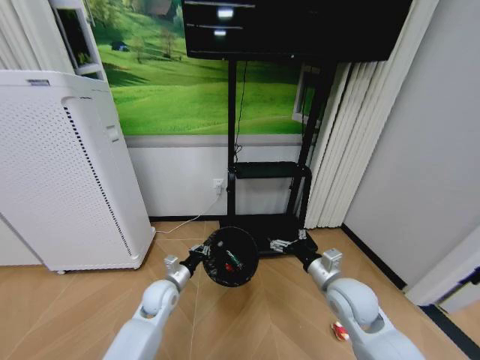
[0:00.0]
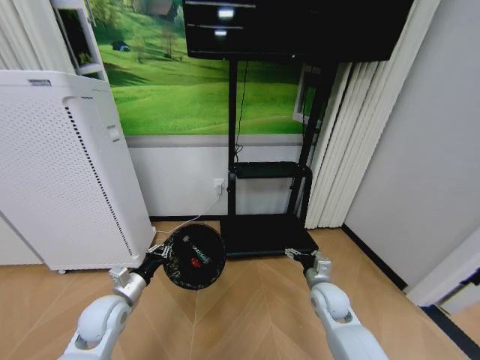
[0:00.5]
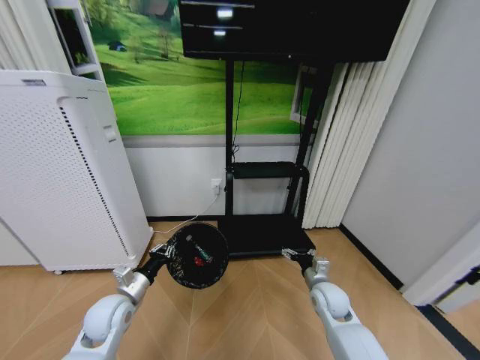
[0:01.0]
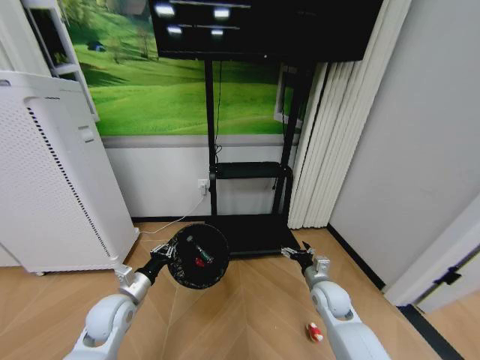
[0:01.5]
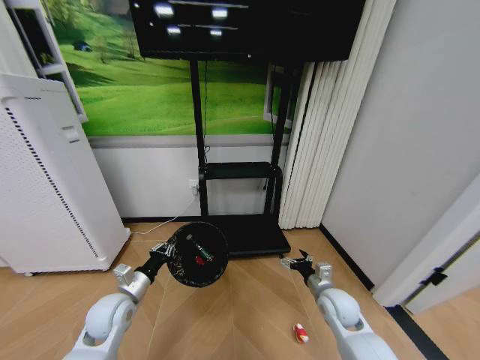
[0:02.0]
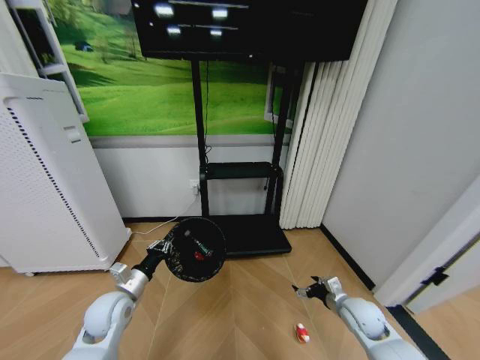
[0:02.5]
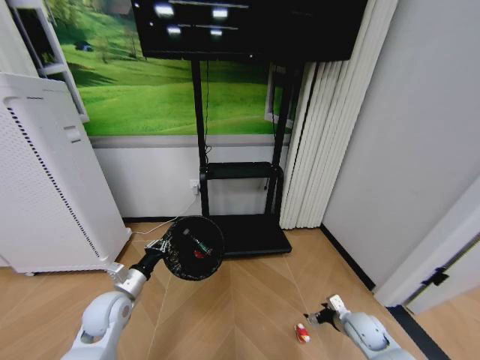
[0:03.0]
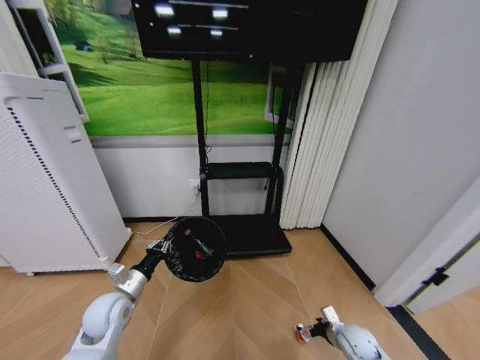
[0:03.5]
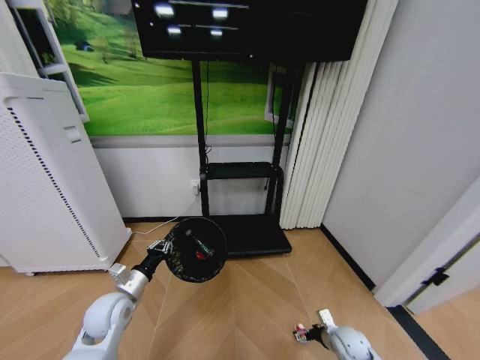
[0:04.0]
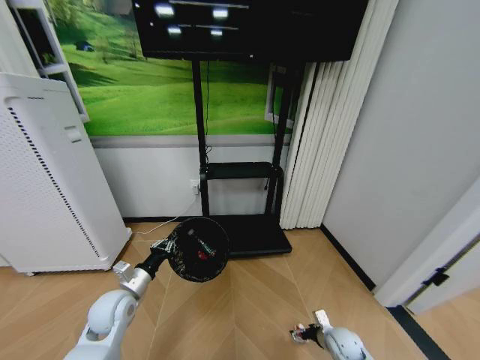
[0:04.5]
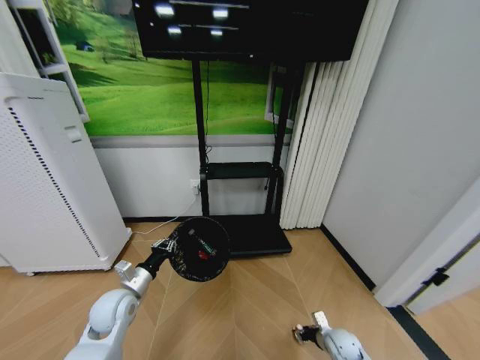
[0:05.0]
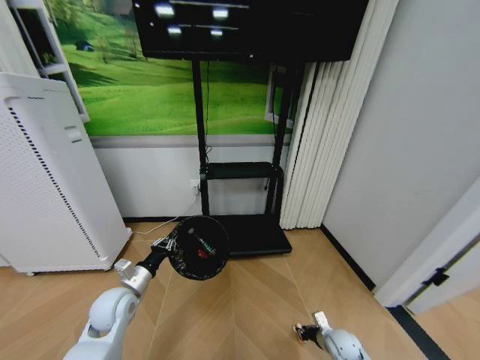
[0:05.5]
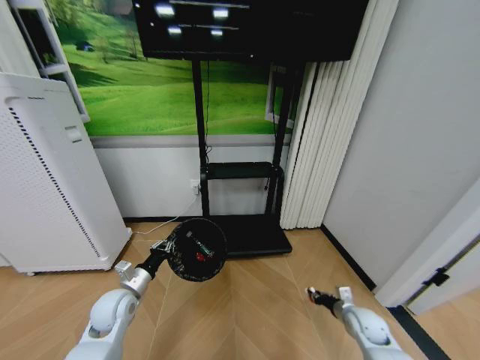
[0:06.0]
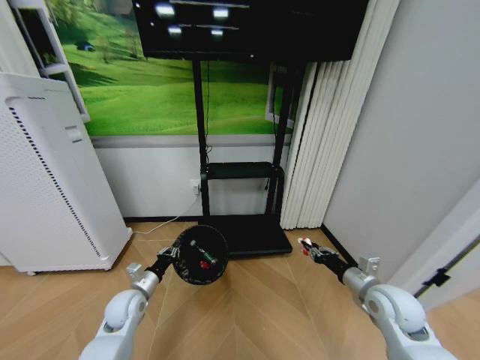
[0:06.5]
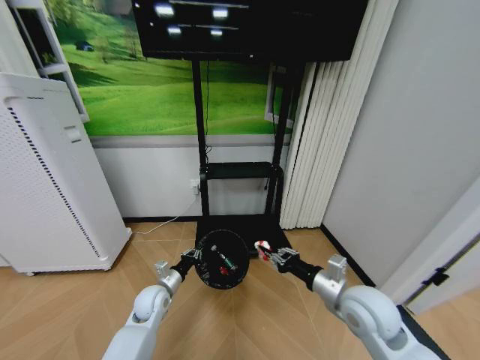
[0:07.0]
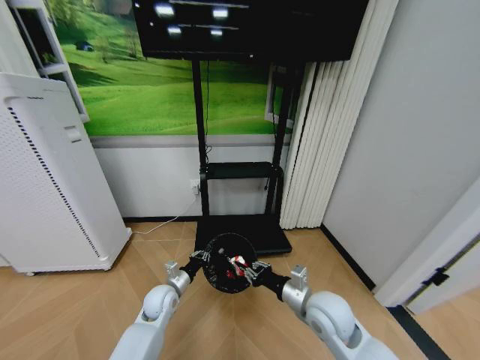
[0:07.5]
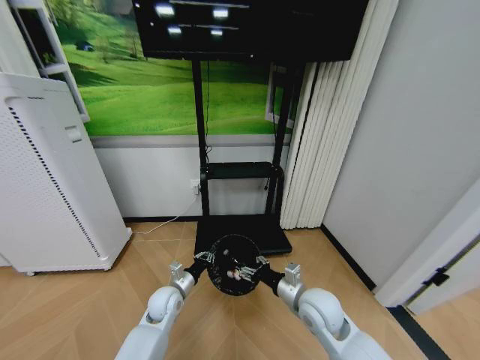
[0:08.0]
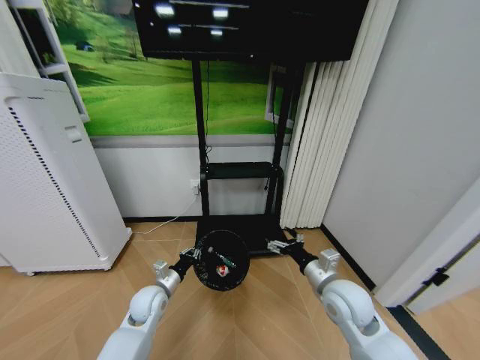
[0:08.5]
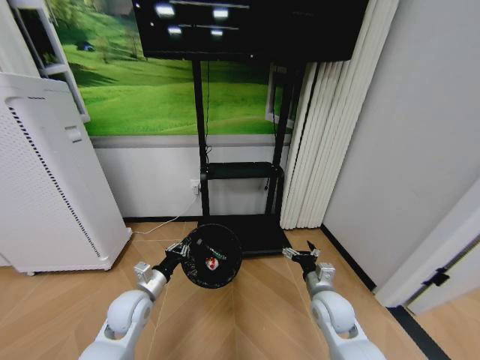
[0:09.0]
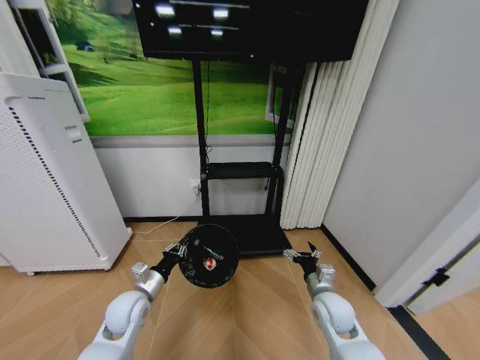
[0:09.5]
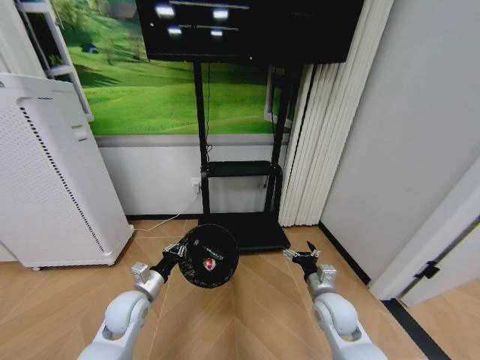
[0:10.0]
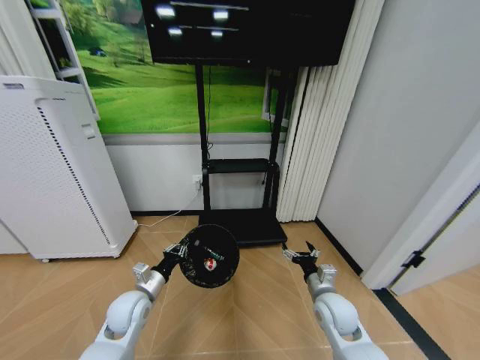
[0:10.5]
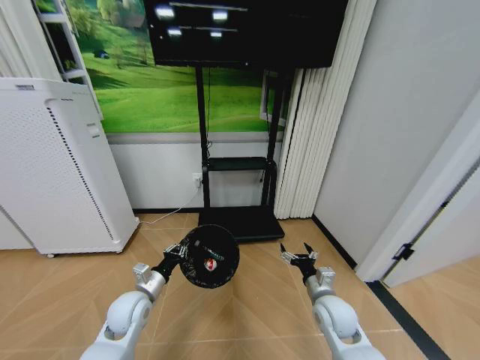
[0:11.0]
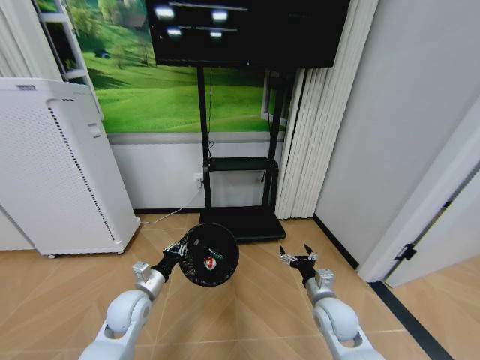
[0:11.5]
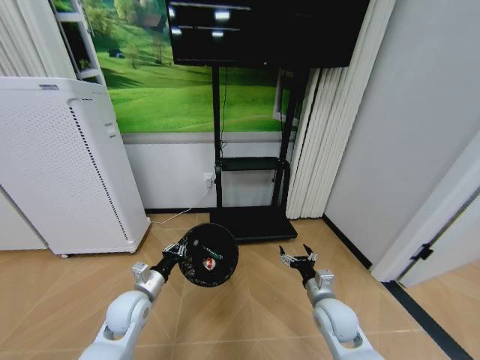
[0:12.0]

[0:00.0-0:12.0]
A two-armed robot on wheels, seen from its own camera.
Task of the whole recording: Pick up the trash bin and place the garbage on the floor into it.
0:00.0 to 0:02.0: The left gripper travels to the left, backward and upward by roughly 15 cm. The right gripper shifts about 10 cm downward.
0:02.0 to 0:04.0: The right gripper travels downward and to the right by some 15 cm.
0:04.0 to 0:06.0: The right gripper is displaced upward by approximately 5 cm, and closes.
0:06.0 to 0:08.0: The left gripper heads to the right and downward, covering about 15 cm; the right gripper heads to the left and upward, covering some 25 cm, and opens.
0:08.0 to 0:10.0: The left gripper heads to the left and upward, covering roughly 10 cm, while the right gripper is displaced to the right by some 5 cm, and opens up.

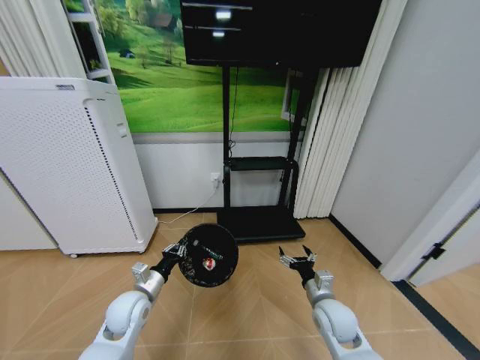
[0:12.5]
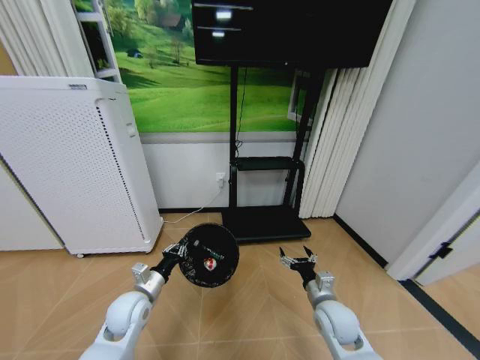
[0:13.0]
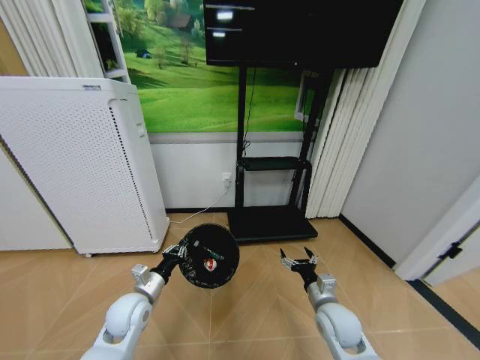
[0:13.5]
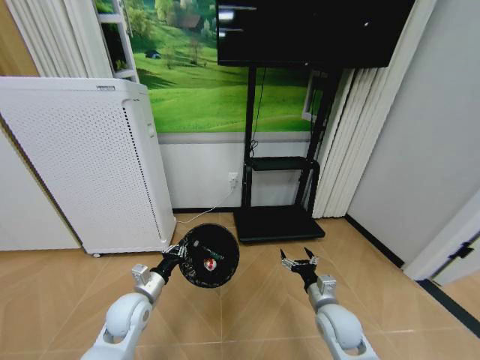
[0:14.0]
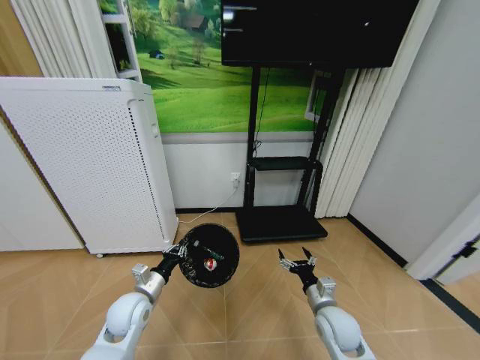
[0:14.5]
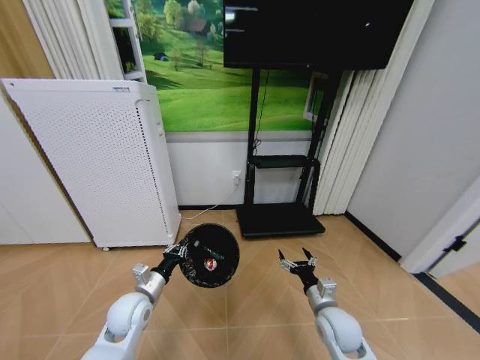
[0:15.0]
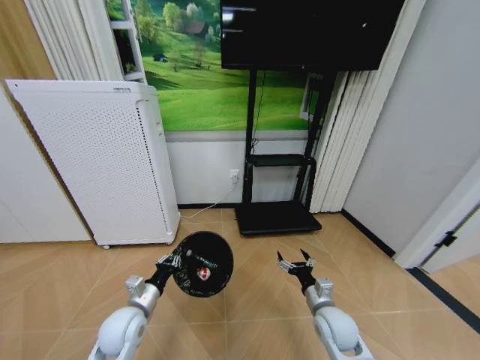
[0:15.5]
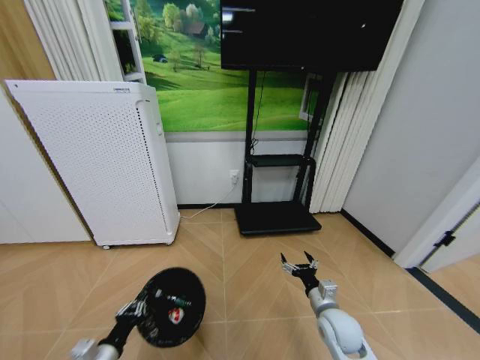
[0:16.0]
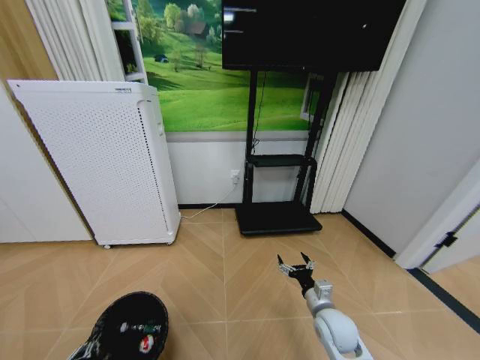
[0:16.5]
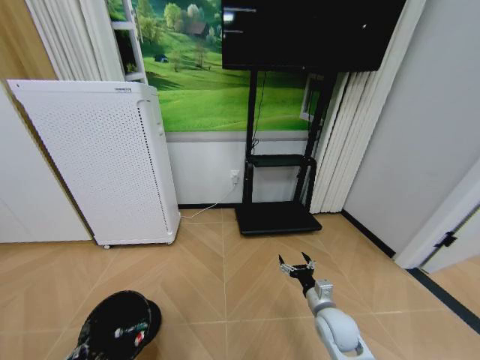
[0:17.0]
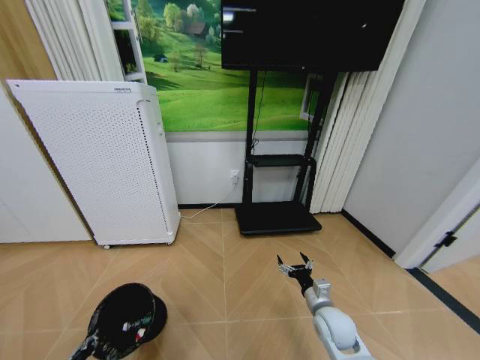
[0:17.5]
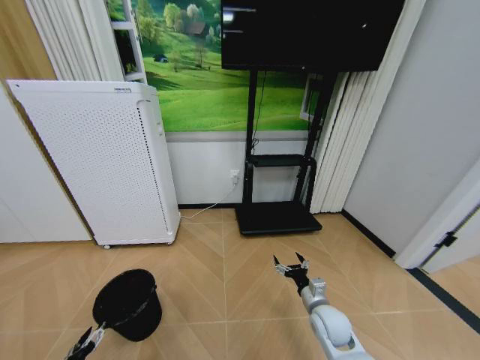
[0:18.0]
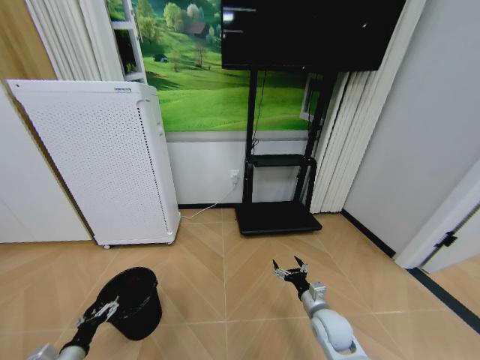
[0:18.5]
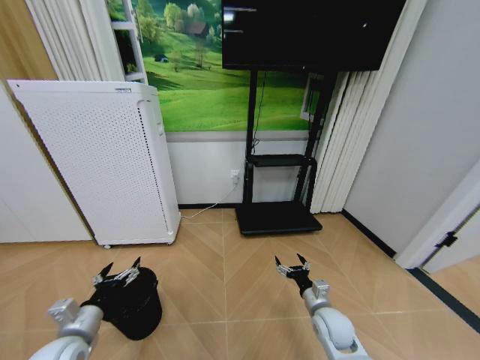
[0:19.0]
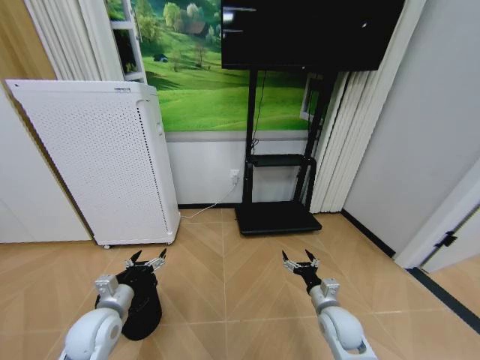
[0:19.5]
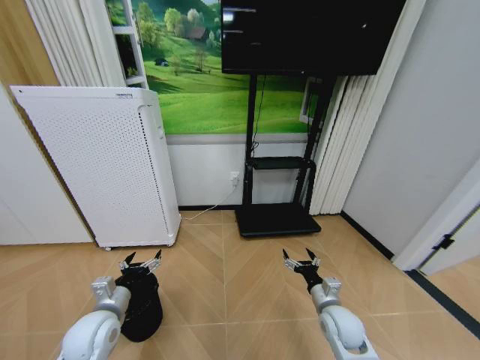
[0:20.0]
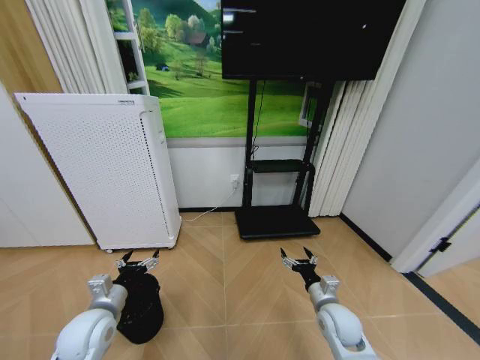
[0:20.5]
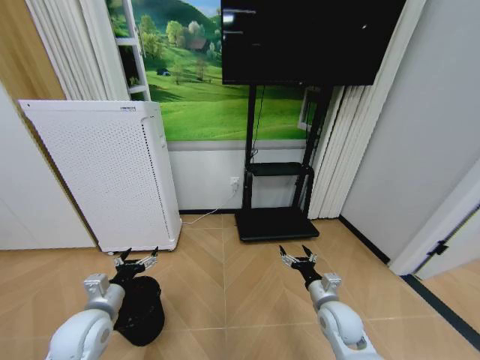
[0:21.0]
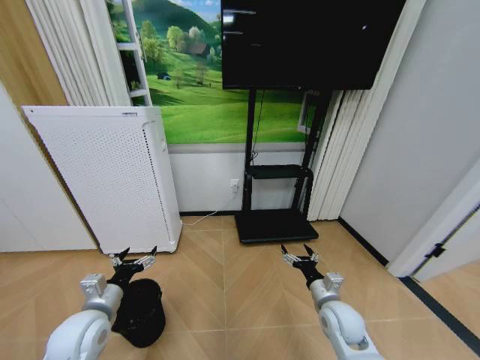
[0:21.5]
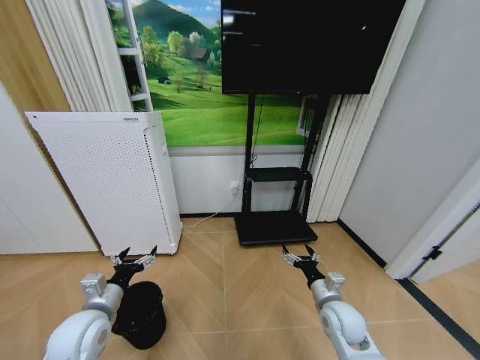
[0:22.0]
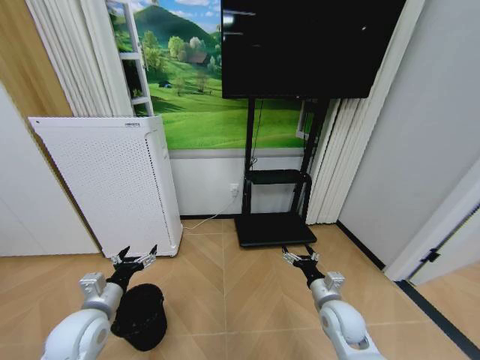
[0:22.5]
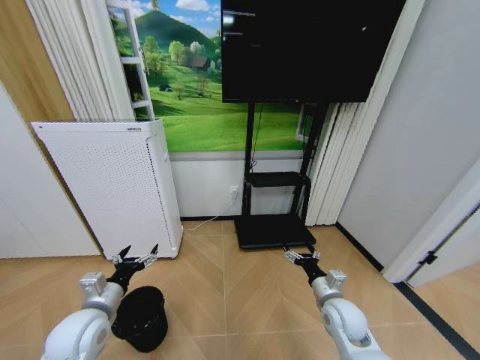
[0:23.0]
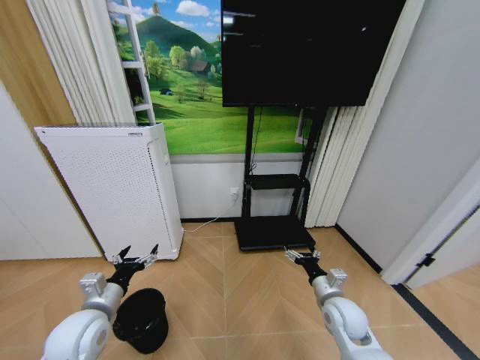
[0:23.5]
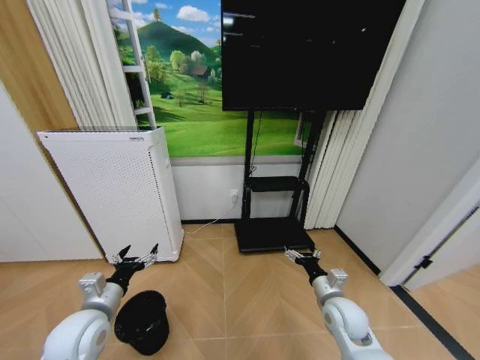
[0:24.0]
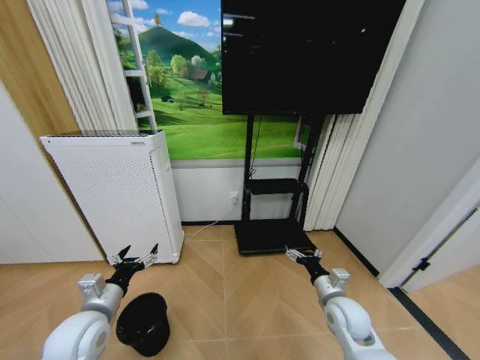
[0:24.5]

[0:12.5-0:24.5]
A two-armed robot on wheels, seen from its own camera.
Task of the whole recording: Pick up the trash bin and place the garbage on the floor into it.
0:14.5 to 0:16.5: The left gripper goes some 30 cm backward, to the left and downward.
0:16.5 to 0:18.5: The left gripper goes approximately 10 cm forward, and opens.
0:18.5 to 0:20.5: The left gripper is displaced upward, to the right and forward by some 20 cm.
0:20.5 to 0:24.5: The grippers move only a little.
